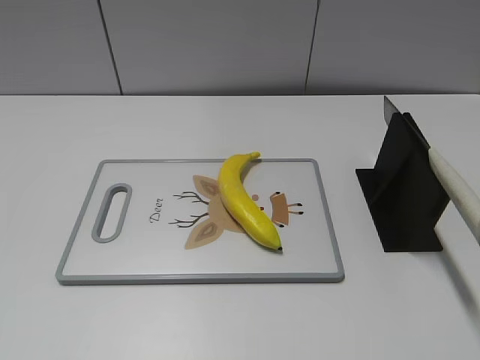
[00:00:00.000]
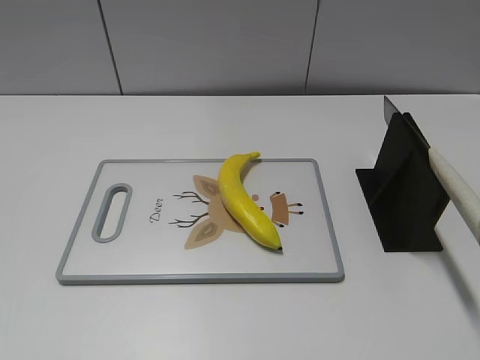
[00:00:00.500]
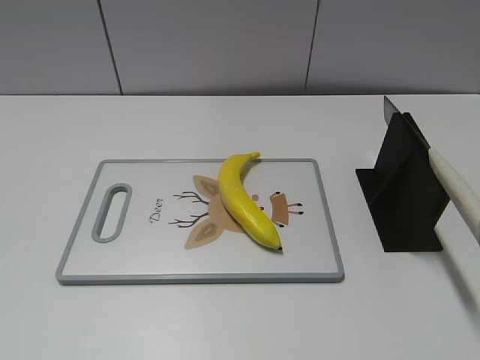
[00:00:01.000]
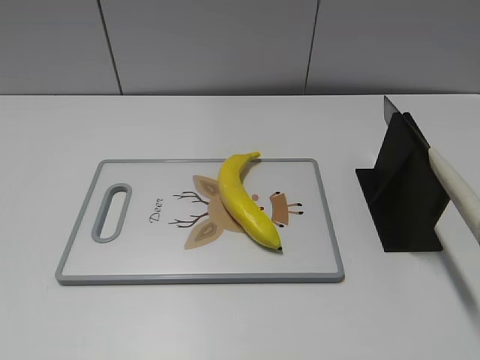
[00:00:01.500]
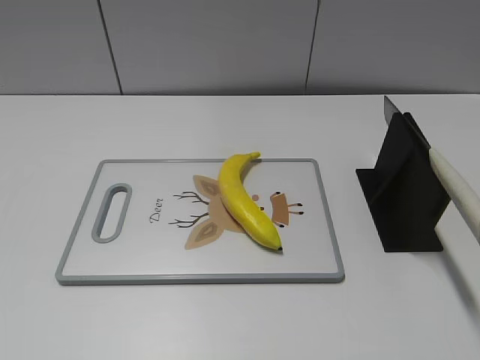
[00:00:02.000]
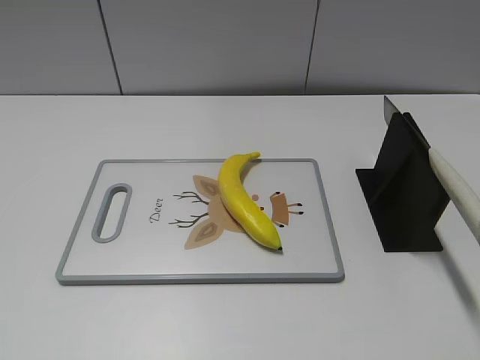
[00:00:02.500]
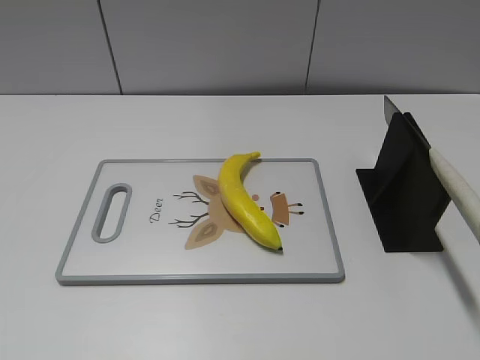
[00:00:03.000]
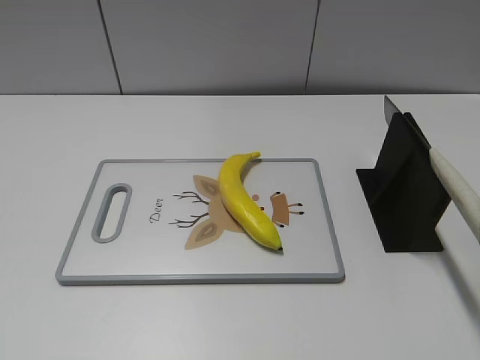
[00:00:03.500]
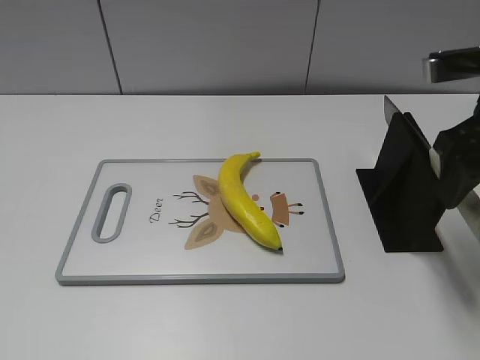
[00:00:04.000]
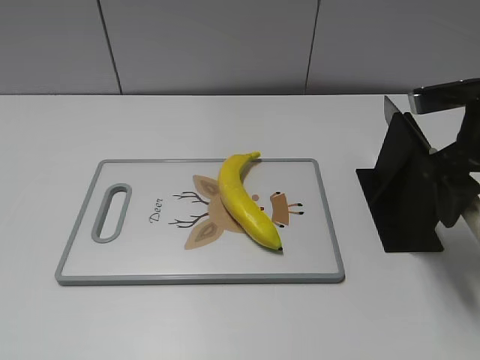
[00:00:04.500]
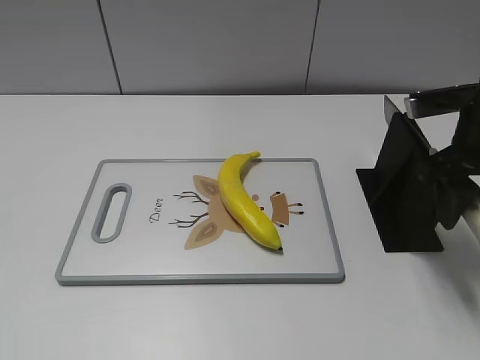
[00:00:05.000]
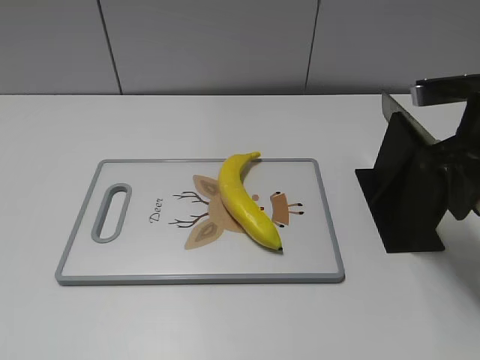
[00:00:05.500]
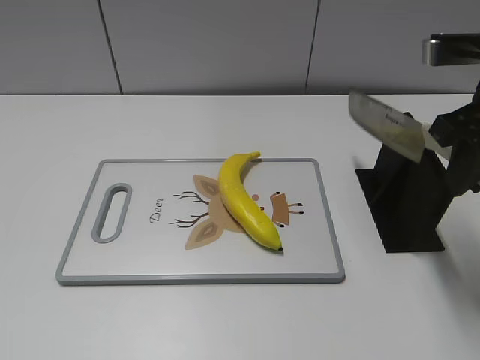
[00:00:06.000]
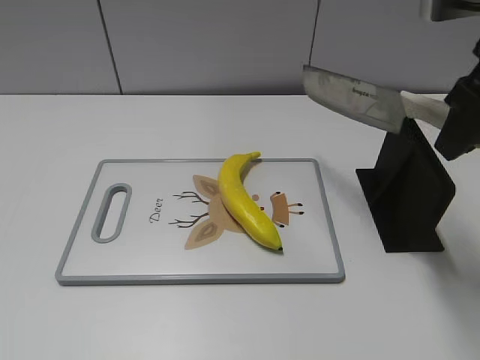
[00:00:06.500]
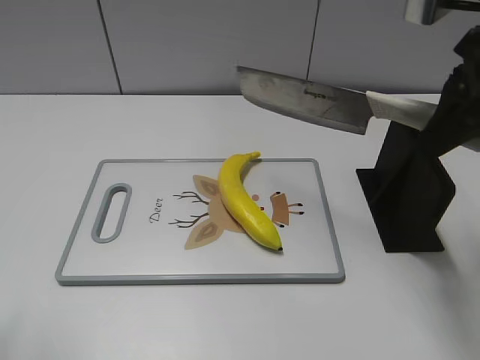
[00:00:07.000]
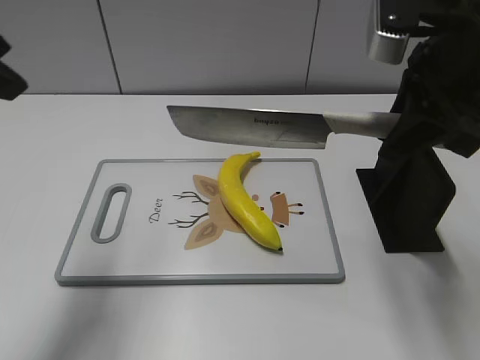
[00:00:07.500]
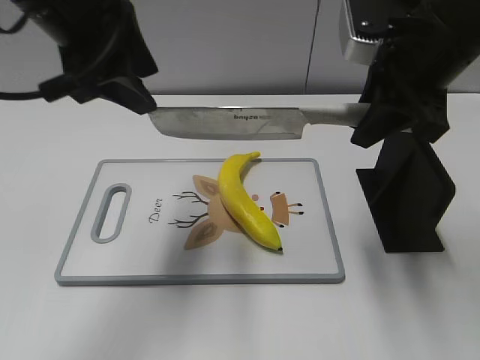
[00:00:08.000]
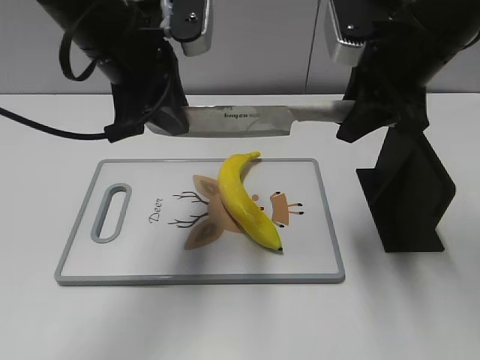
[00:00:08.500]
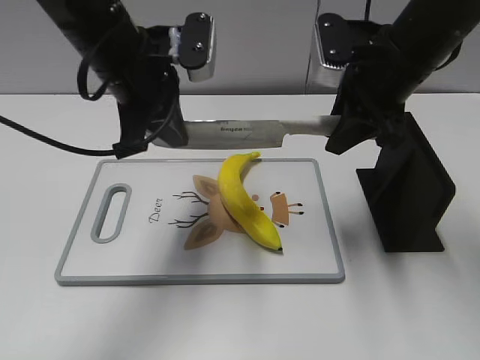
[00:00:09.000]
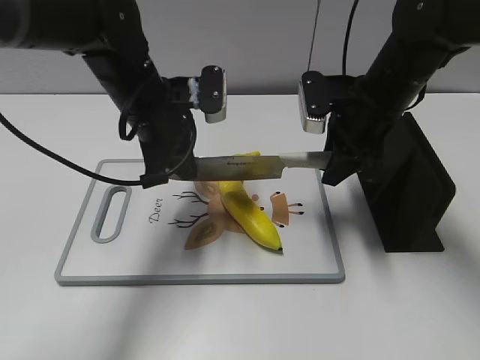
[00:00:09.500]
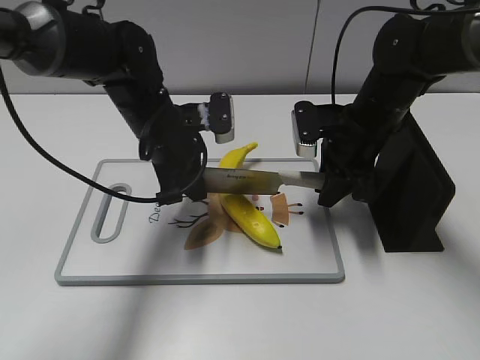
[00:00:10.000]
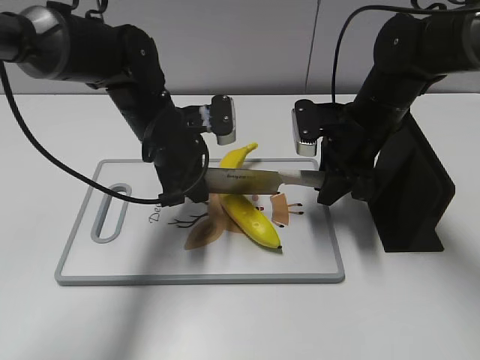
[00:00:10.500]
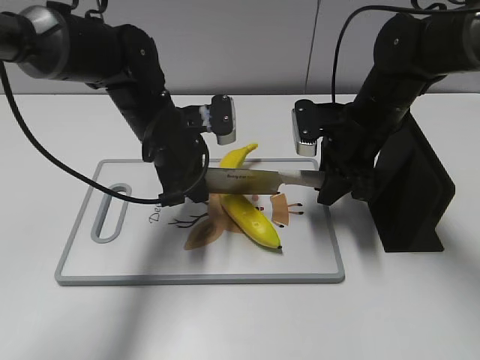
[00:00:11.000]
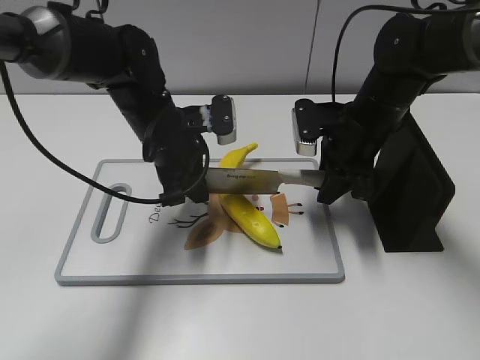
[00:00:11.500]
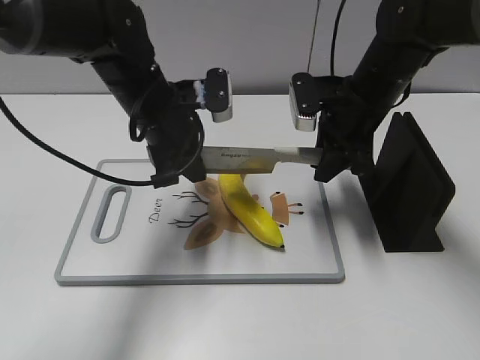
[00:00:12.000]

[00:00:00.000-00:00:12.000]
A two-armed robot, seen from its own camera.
Task of the whole recording: cut plastic banana.
Step, 00:00:00.000 to 00:00:06.000: Grab the knife handle with your right hand.
Step, 00:00:07.000 to 00:00:10.500: Hold the blade with your left hand.
00:00:02.000 to 00:00:04.000: The right gripper heads forward, covering some 30 cm.
00:00:04.000 to 00:00:06.000: The right gripper closes up.
00:00:06.000 to 00:00:08.000: The right gripper moves to the left, roughly 5 cm, while the left gripper moves forward and to the right, approximately 35 cm.
00:00:08.000 to 00:00:10.000: The right gripper goes some 15 cm downward and forward; the left gripper moves downward, roughly 20 cm, and closes.
00:00:10.000 to 00:00:12.000: The grippers move only a little.

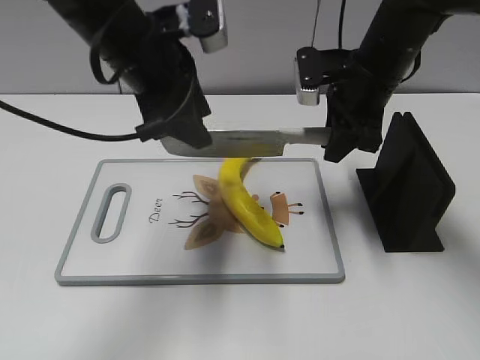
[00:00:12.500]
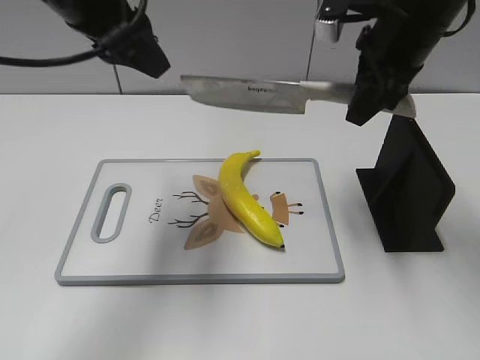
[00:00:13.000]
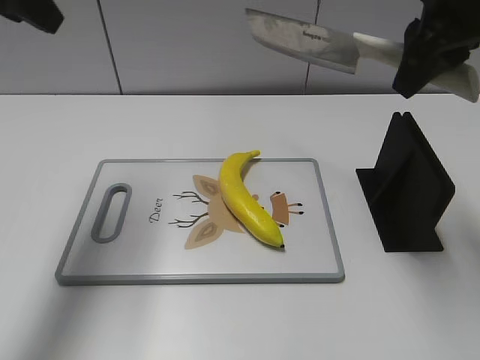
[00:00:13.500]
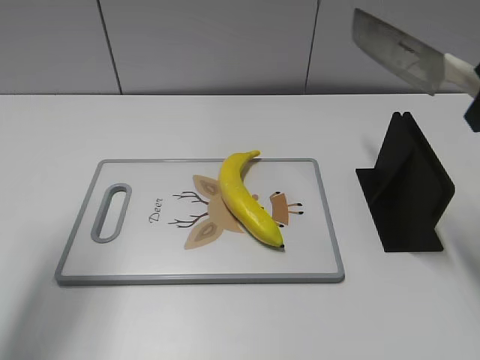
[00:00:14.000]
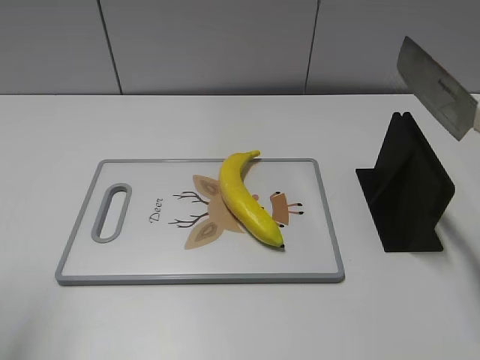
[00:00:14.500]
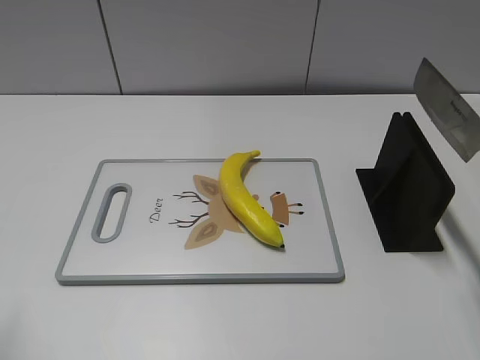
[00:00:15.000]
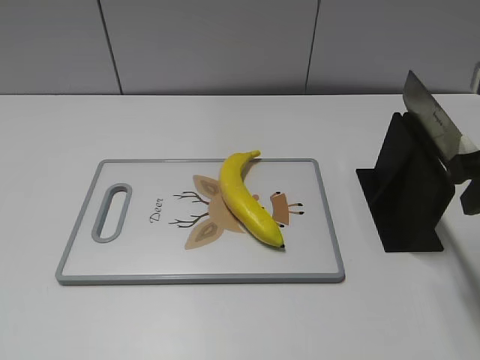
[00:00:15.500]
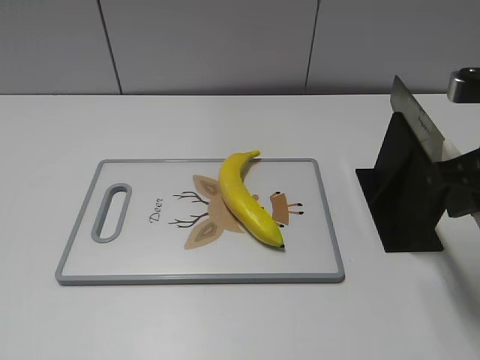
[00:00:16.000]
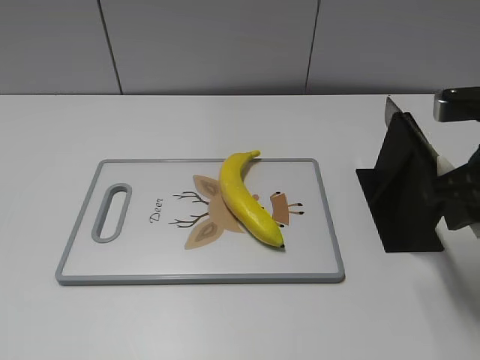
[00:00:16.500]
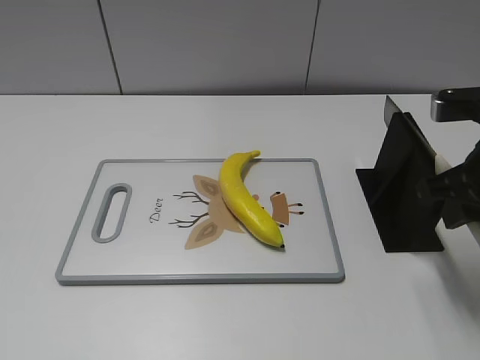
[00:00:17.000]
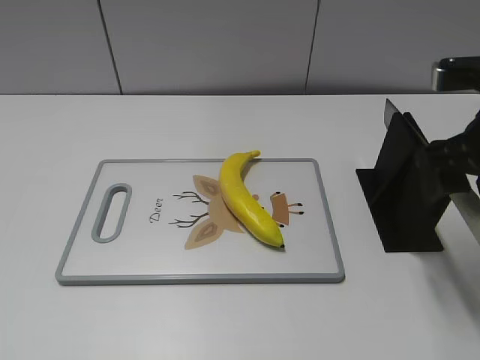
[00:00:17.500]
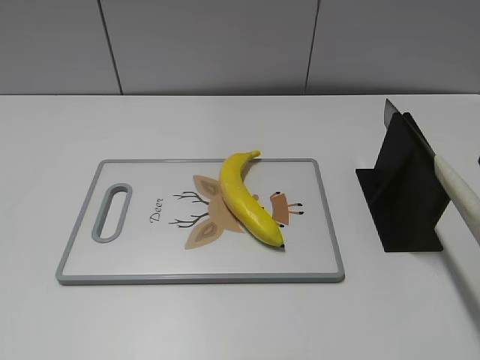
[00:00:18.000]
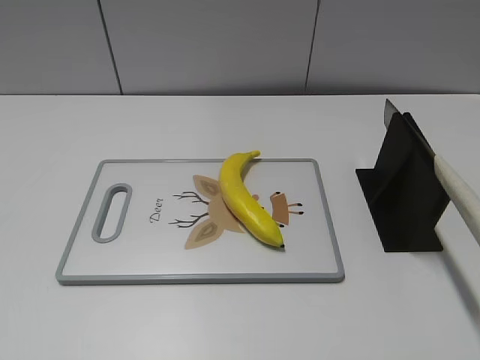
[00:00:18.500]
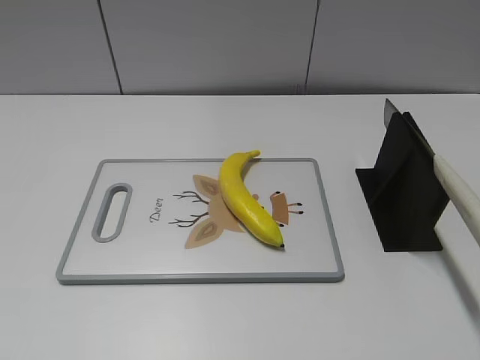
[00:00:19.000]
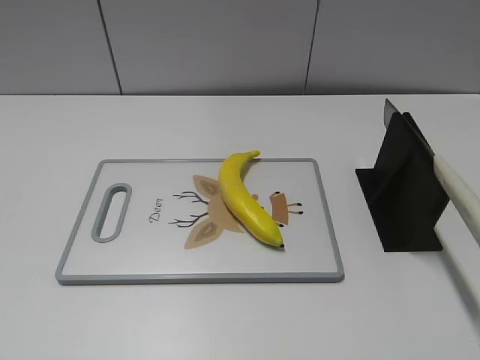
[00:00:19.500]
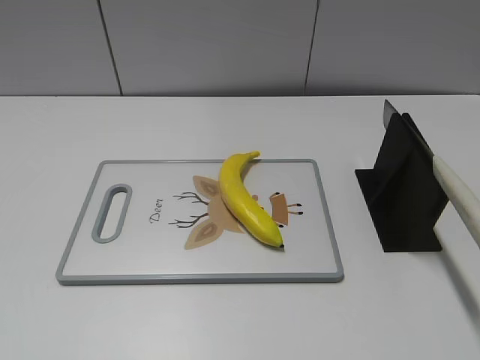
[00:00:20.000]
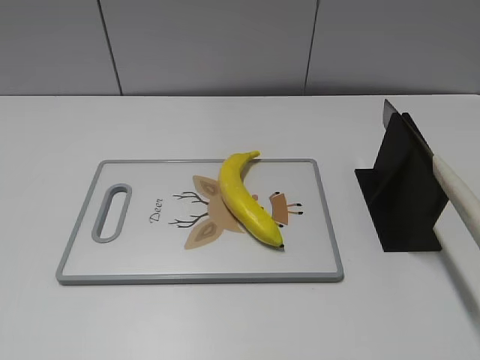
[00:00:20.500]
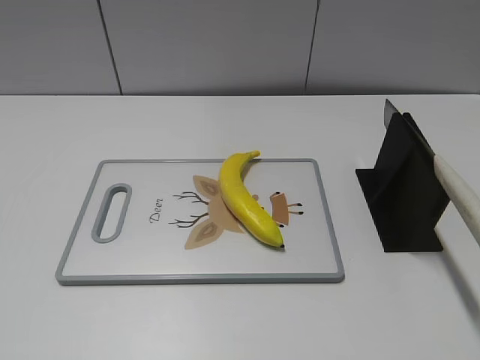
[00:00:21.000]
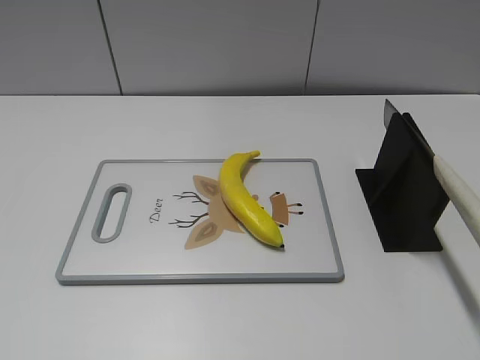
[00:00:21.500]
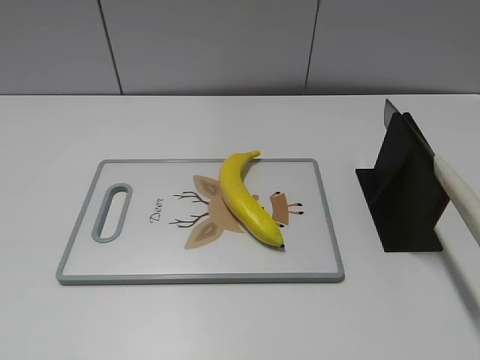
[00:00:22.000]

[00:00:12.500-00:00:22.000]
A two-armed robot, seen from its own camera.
Task of the whole recording: cut plastic banana.
Step, 00:00:15.500 to 00:00:21.500: Place the knife on the storage rack with your right hand.
00:00:12.500 to 00:00:14.500: The left gripper moves to the left and backward, about 25 cm. The right gripper is displaced backward, to the right and upward by roughly 20 cm.
00:00:14.500 to 00:00:16.500: The left gripper moves backward, approximately 15 cm. Meanwhile the right gripper goes roughly 5 cm downward.
00:00:16.500 to 00:00:18.000: The right gripper goes some 10 cm upward, and opens.
00:00:18.000 to 00:00:20.000: The right gripper shifts some 25 cm backward.
